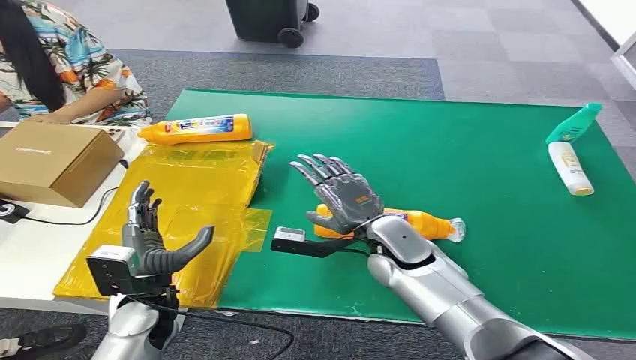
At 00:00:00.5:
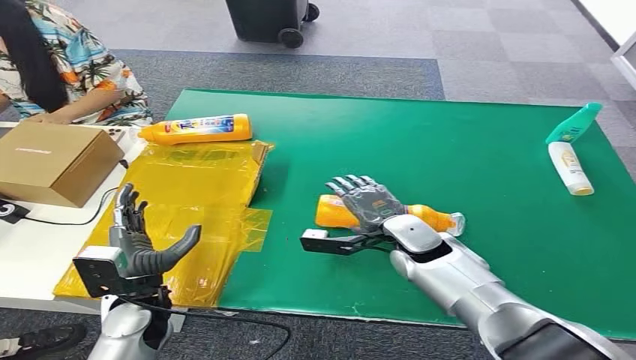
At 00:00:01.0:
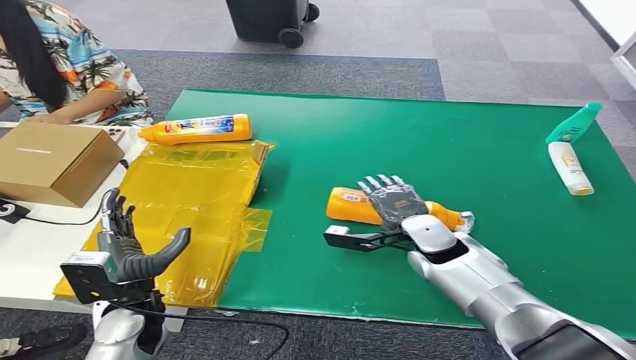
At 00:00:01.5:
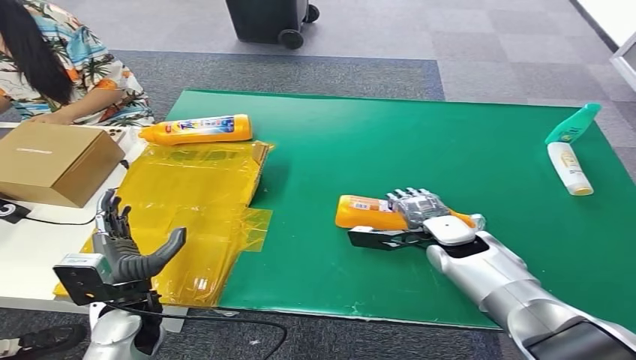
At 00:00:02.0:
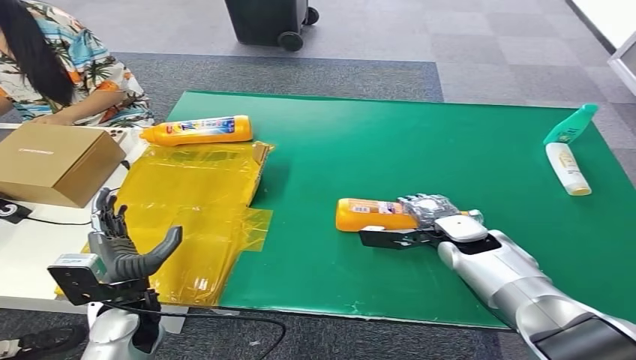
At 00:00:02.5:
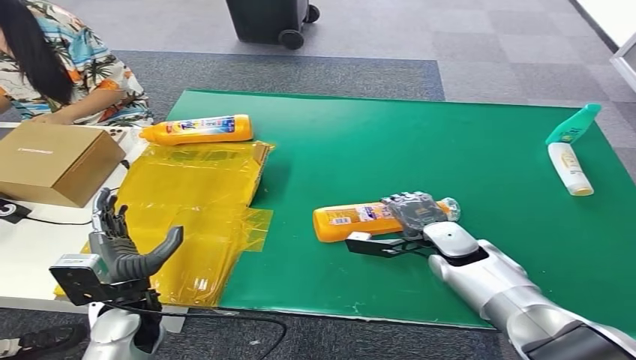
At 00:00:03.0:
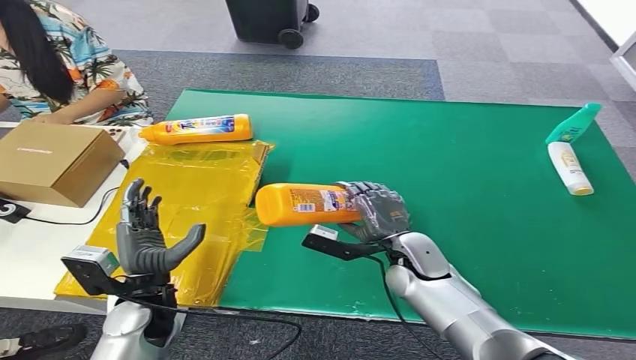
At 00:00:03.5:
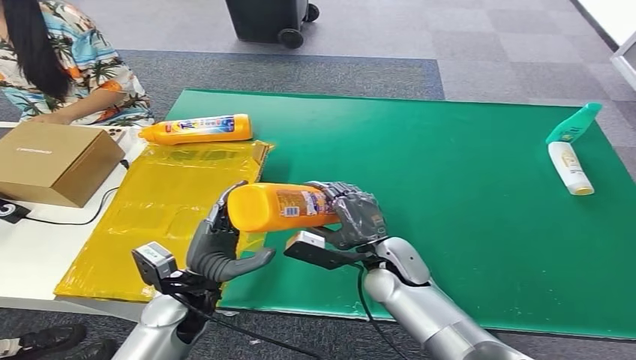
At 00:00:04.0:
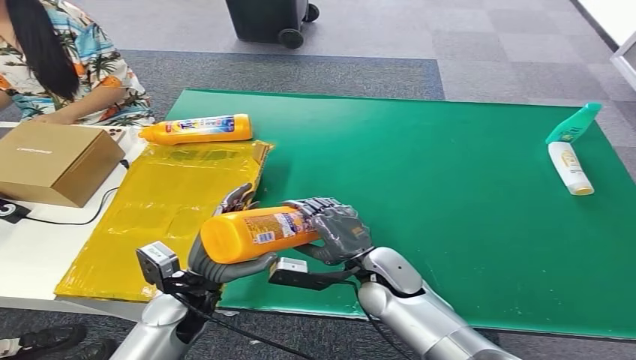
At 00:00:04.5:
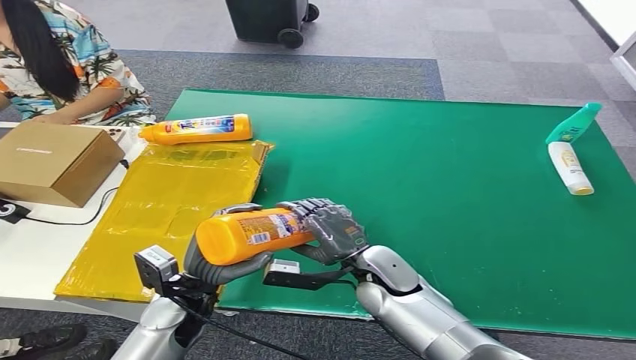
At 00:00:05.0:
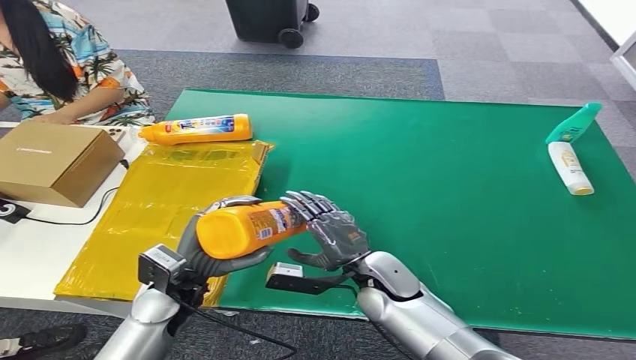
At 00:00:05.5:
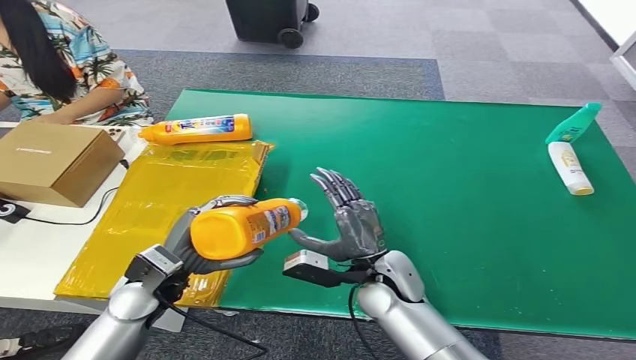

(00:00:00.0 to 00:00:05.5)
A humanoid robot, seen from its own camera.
Step, 00:00:00.0 - 00:00:03.0: Pick up the bottle from the table.
Step, 00:00:03.5 - 00:00:05.5: Turn the bottle to the front side.
00:00:03.5 - 00:00:05.5: The left hand ends up approximately 5 cm from where it was.

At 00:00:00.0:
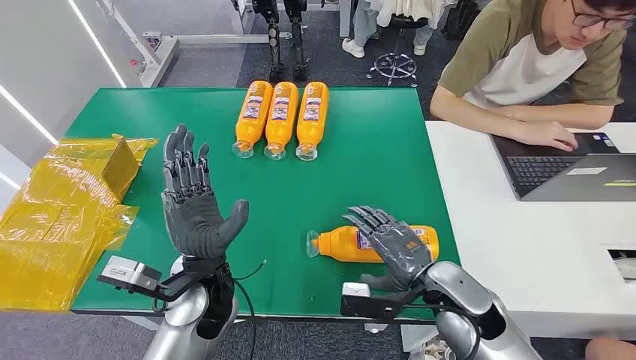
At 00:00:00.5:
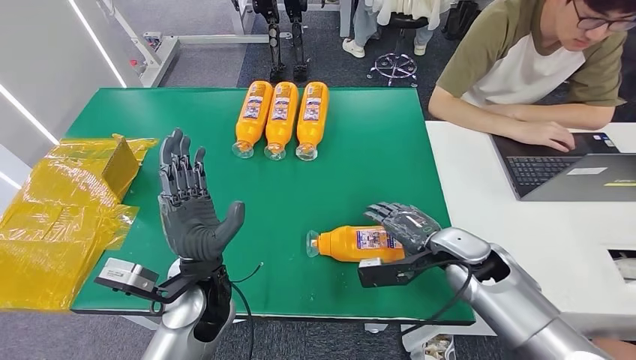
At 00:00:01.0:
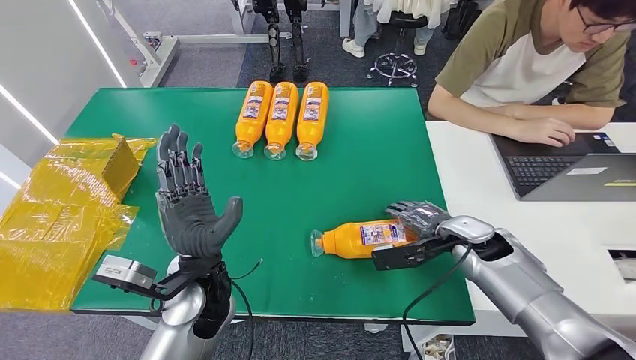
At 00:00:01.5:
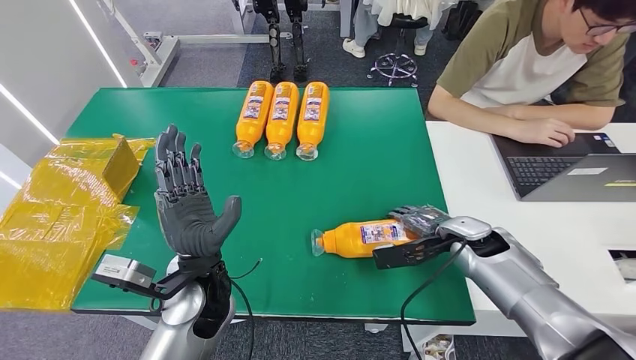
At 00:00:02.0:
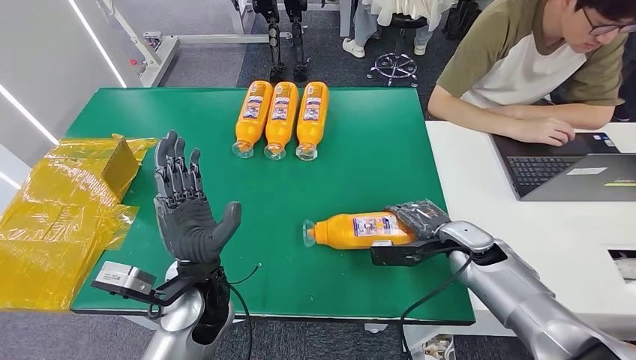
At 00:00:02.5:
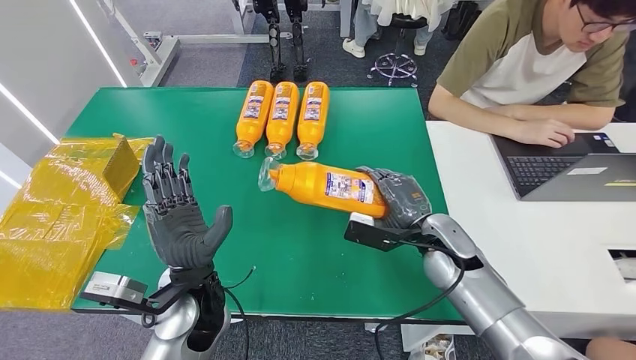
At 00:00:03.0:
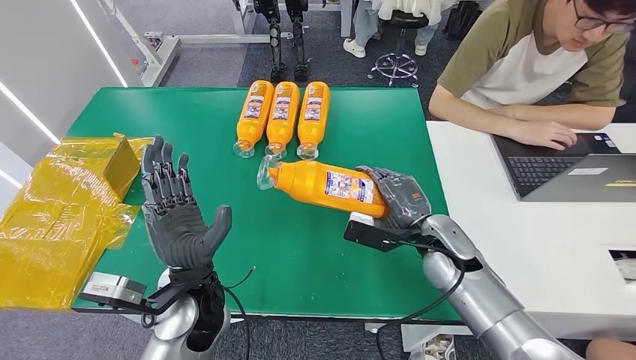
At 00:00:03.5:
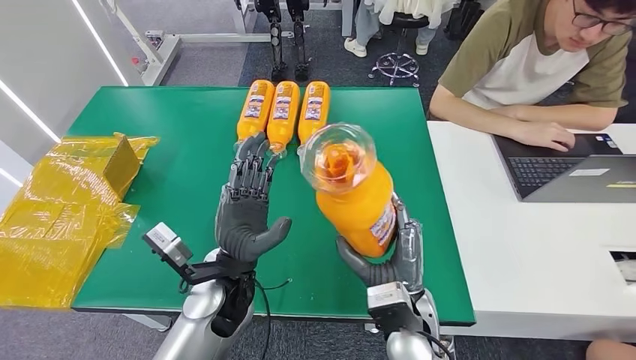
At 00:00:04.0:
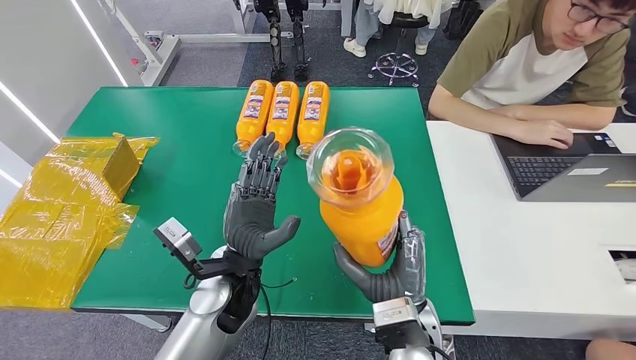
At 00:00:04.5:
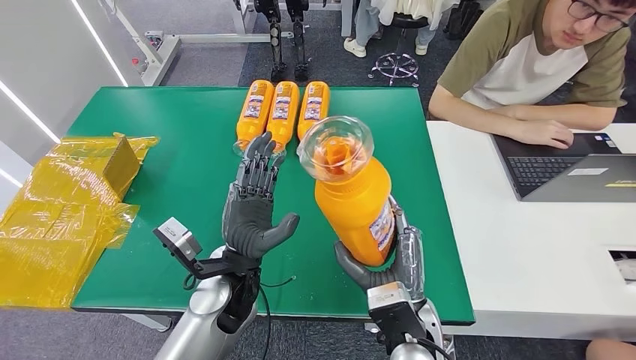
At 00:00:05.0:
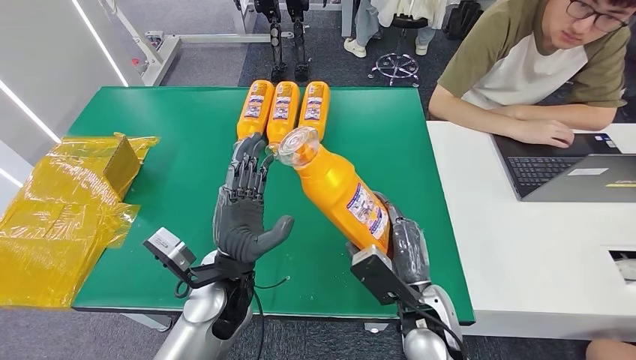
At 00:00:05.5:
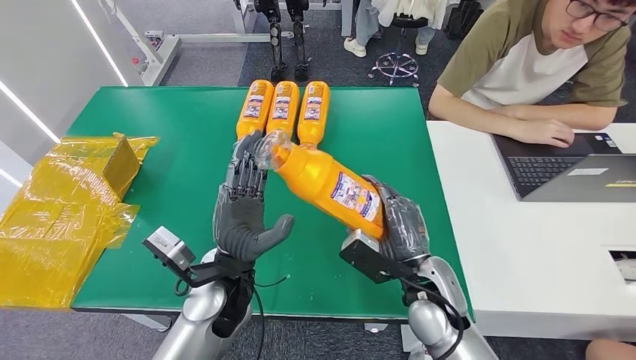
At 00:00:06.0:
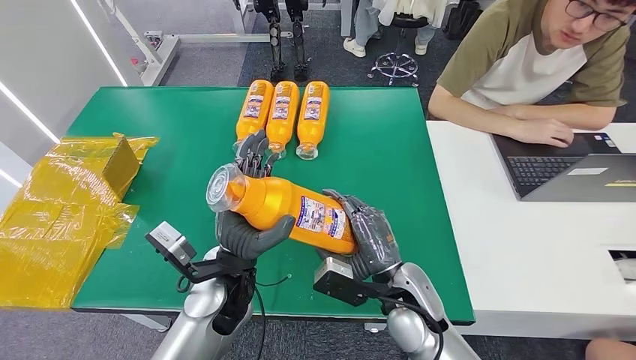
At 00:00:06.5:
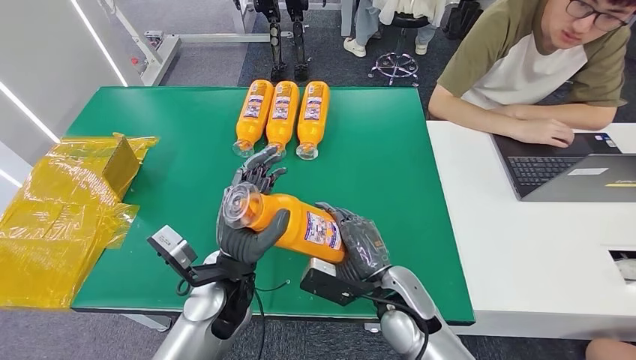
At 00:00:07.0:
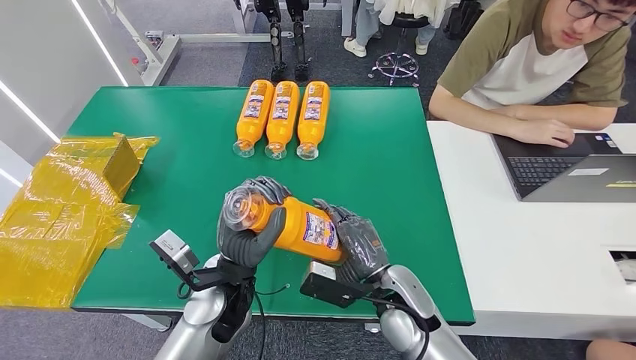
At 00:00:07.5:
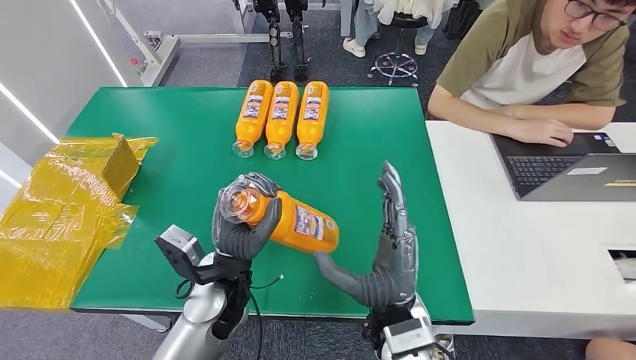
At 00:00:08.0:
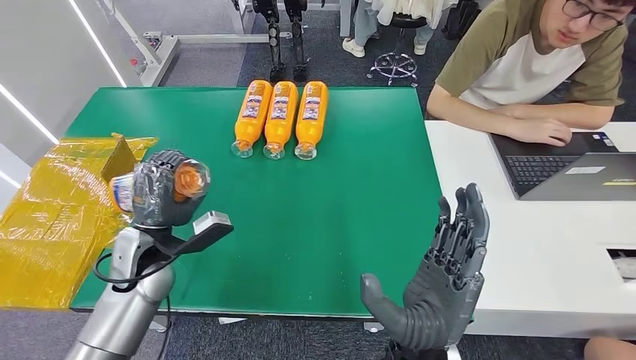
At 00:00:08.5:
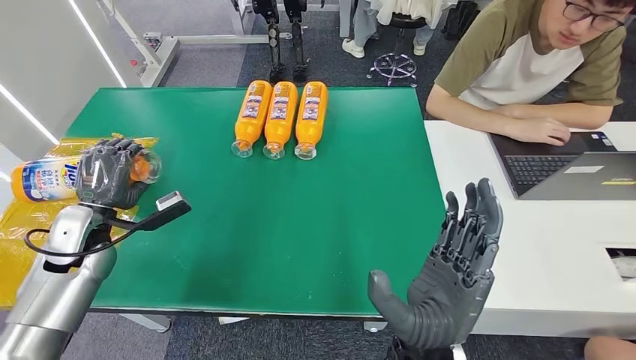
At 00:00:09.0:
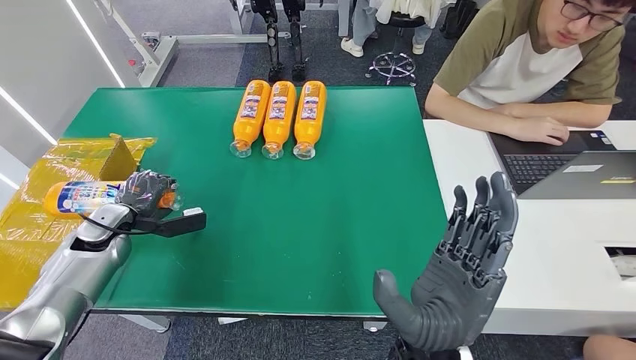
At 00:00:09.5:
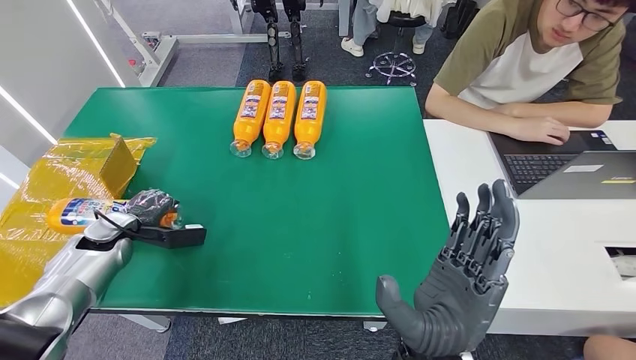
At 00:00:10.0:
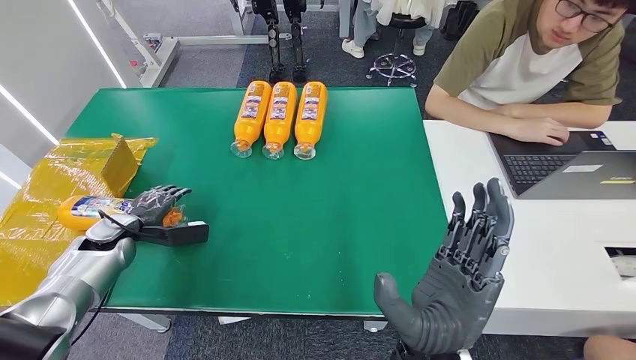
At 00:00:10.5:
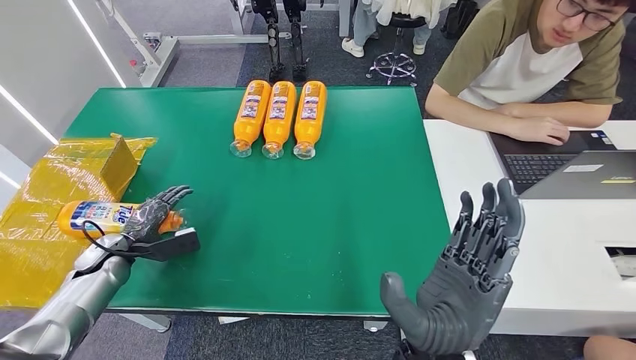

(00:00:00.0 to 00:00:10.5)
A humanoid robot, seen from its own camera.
Step, 00:00:00.0 - 00:00:03.0: Pick up the bottle from the table.
Step, 00:00:03.5 - 00:00:10.5: Turn the bottle to the front side.
00:00:04.0 - 00:00:06.5: The right hand moves forward, some 5 cm.
00:00:08.5 - 00:00:10.5: The left hand moves downward, approximately 10 cm.
